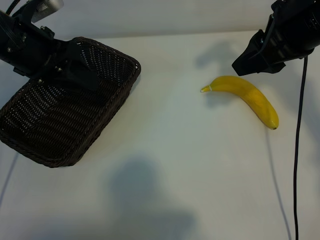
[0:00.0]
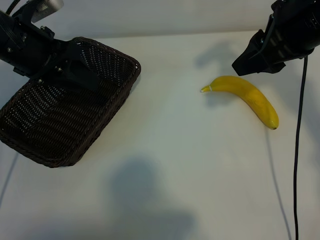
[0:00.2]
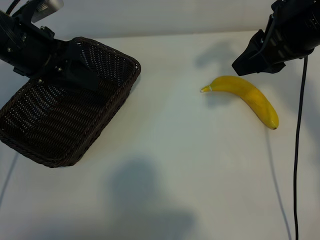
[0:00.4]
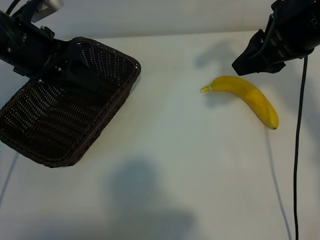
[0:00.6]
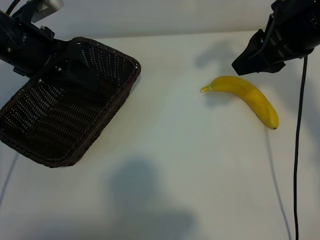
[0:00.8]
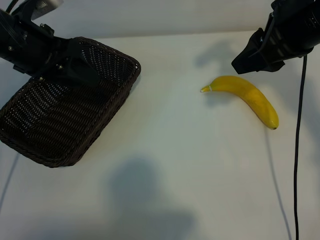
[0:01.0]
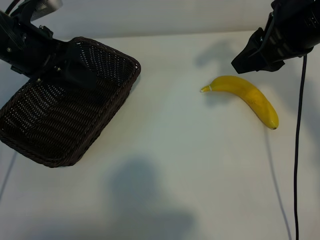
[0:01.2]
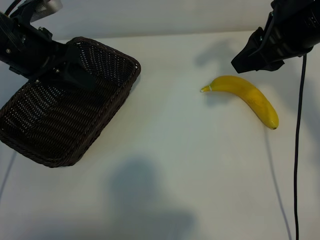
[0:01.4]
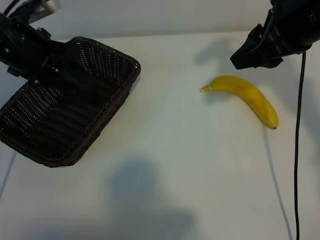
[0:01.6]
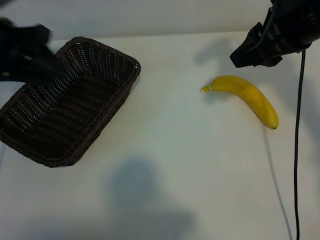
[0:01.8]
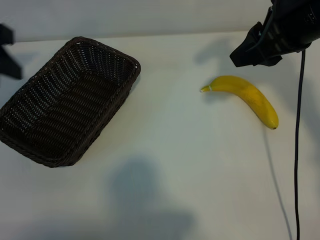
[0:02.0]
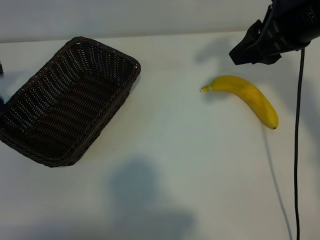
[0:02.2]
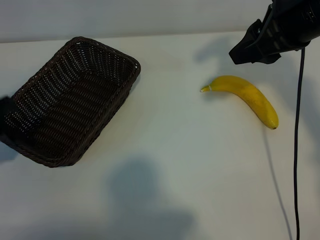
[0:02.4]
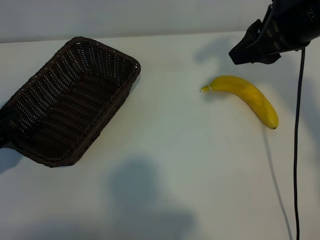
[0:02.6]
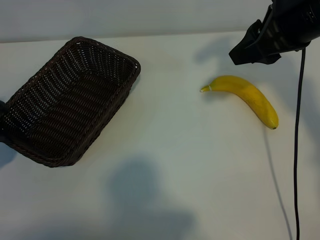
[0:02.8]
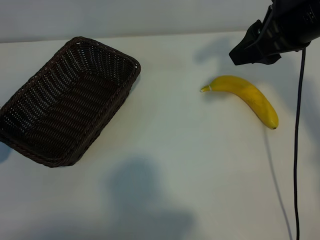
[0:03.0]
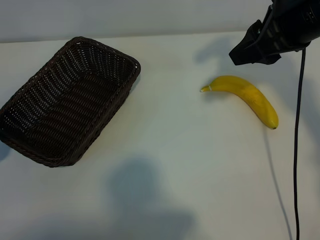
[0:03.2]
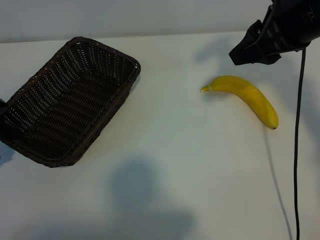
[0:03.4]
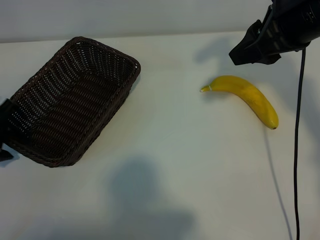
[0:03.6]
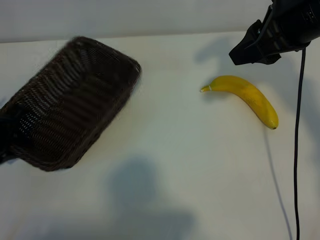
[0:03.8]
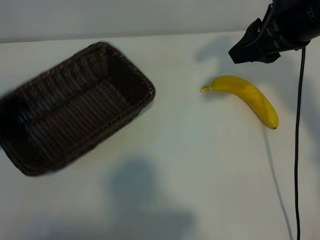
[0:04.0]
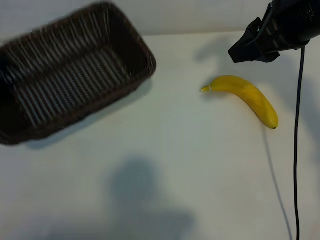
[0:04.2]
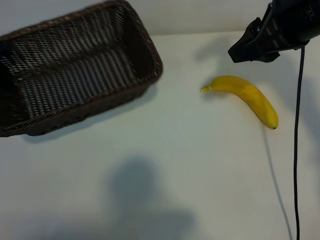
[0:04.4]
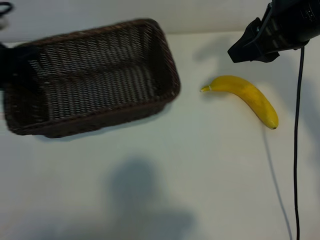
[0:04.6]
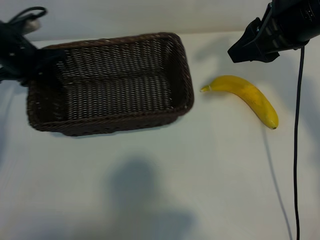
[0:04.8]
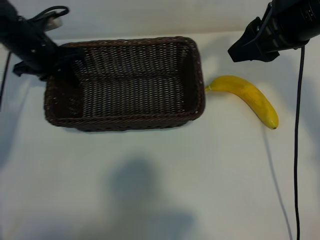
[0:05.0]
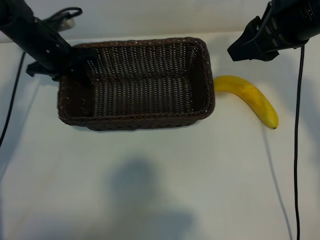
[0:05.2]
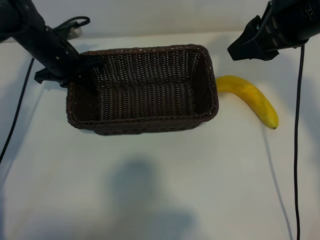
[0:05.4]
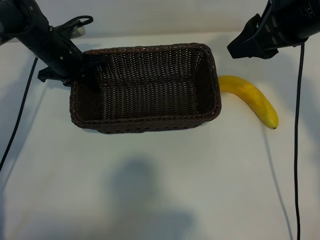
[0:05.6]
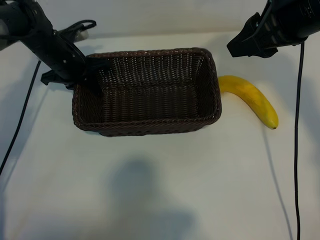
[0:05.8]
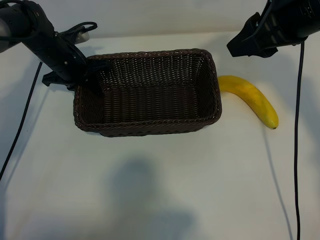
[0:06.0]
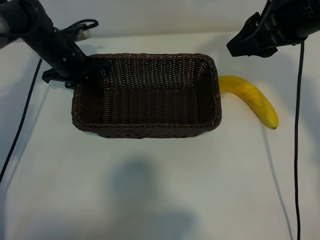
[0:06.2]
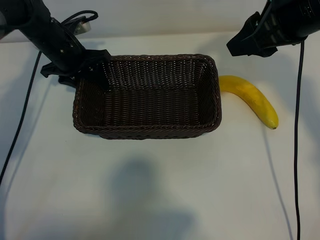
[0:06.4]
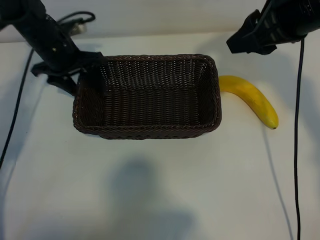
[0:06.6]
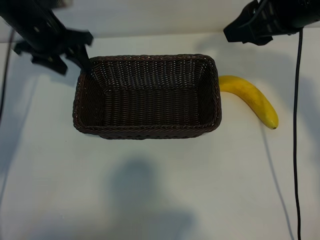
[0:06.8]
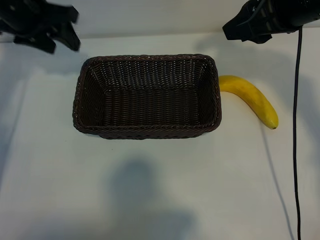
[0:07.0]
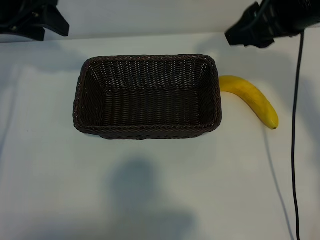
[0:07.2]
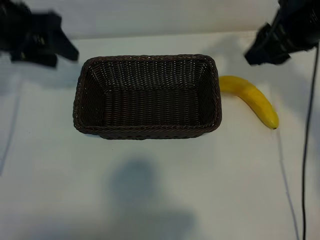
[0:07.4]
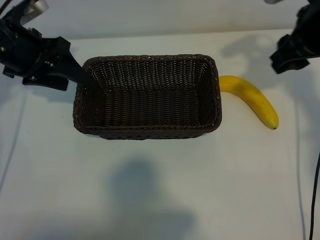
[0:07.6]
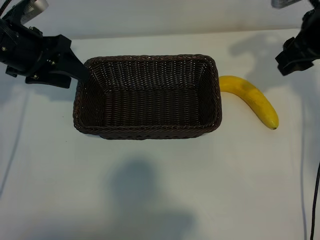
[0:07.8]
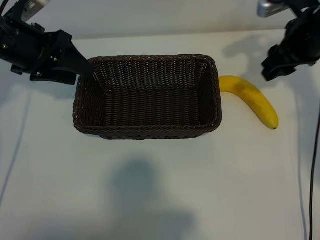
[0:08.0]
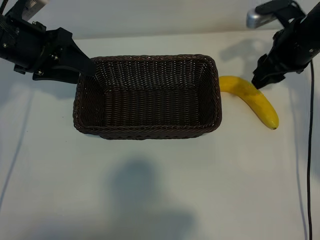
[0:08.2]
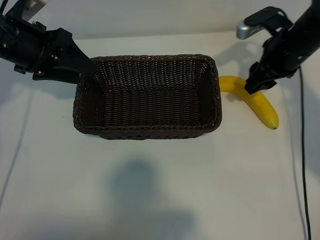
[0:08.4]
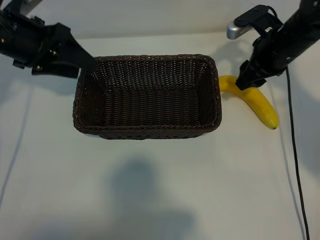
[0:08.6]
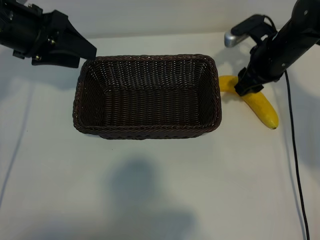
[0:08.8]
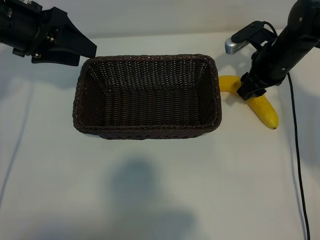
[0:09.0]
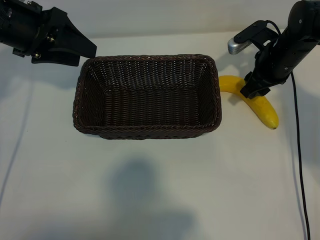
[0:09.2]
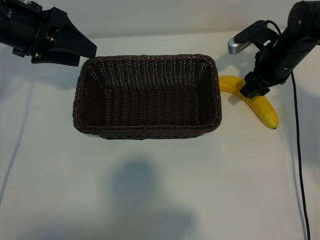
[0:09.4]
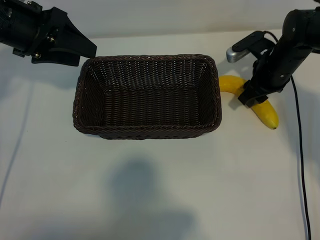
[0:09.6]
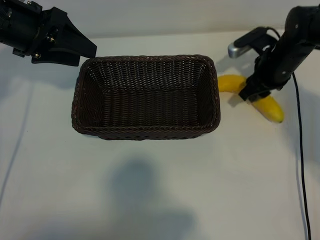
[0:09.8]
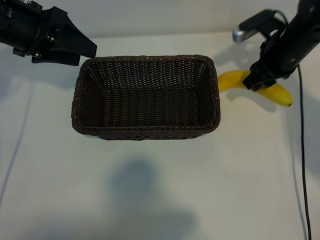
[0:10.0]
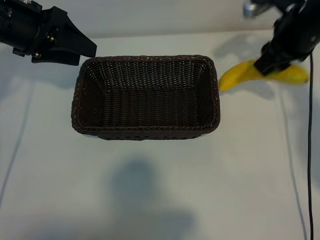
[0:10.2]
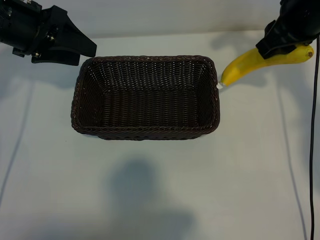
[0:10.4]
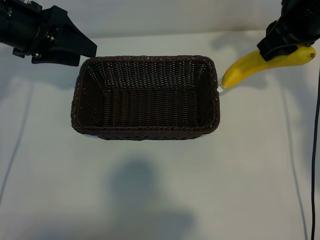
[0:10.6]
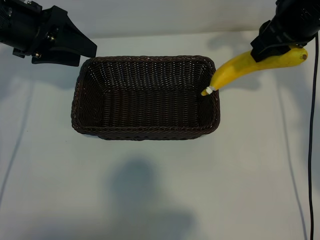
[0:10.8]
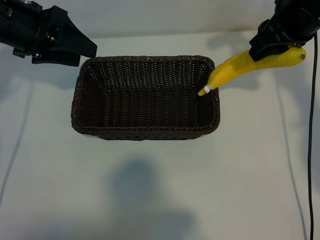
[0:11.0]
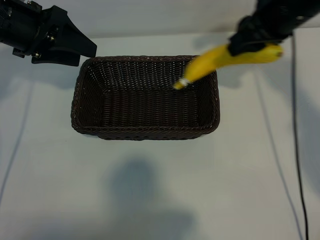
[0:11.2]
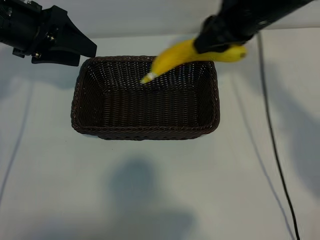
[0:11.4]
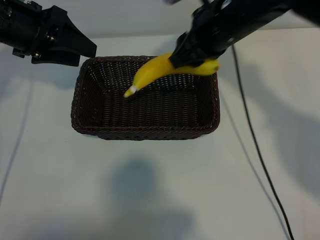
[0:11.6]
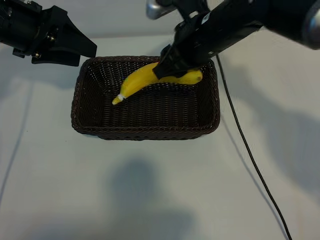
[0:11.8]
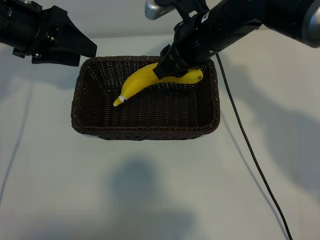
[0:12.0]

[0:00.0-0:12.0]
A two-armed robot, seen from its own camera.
Task of the whole recording: pick up the banana and put it into the basket.
Step, 0:00.6 to 0:03.8: Grasp the basket with the left gripper.
Step, 0:04.0 to 0:06.6: Place the basket in the center of the table with the left gripper.
Step, 0:06.8 to 0:09.6: Grasp the banana with right gripper.

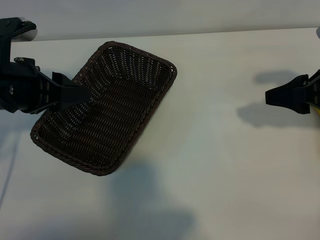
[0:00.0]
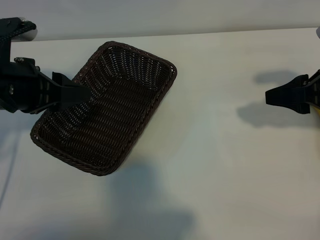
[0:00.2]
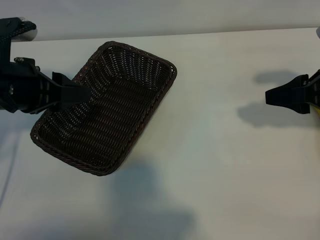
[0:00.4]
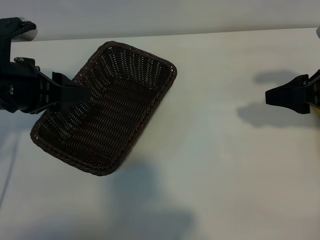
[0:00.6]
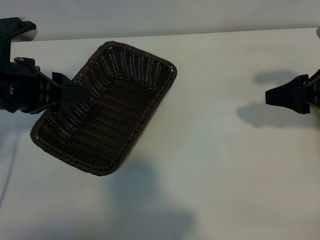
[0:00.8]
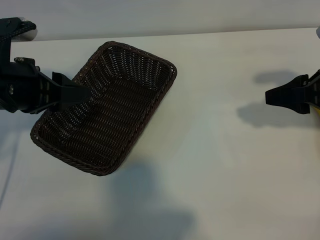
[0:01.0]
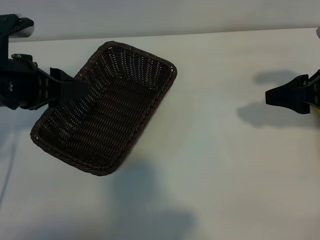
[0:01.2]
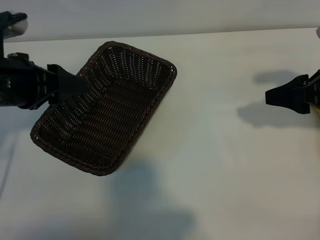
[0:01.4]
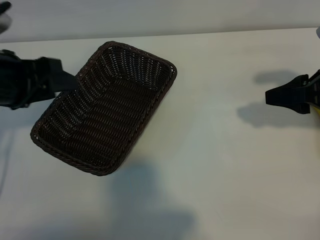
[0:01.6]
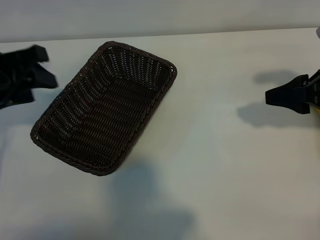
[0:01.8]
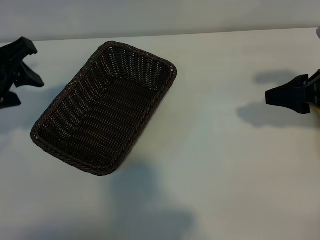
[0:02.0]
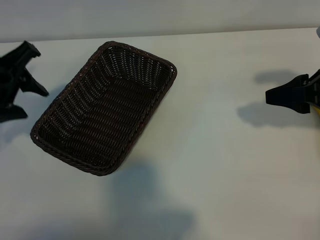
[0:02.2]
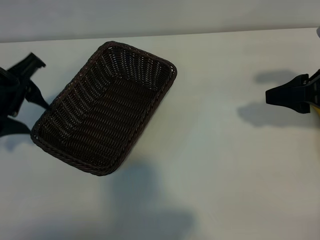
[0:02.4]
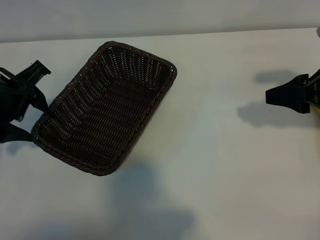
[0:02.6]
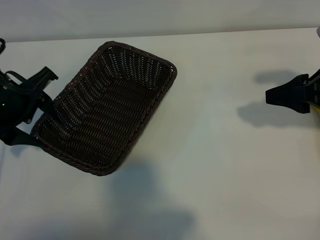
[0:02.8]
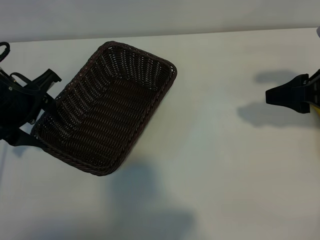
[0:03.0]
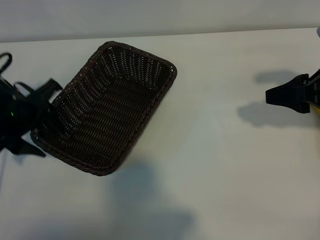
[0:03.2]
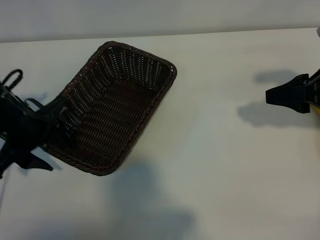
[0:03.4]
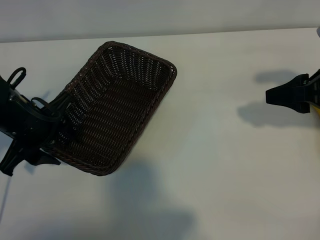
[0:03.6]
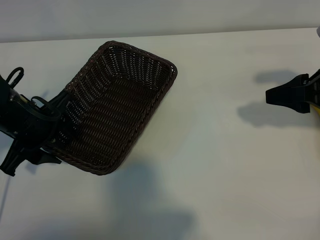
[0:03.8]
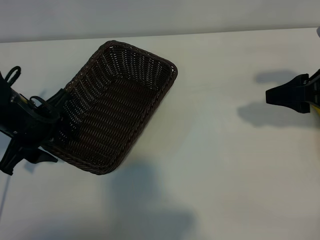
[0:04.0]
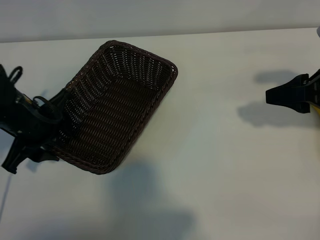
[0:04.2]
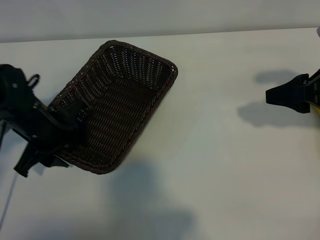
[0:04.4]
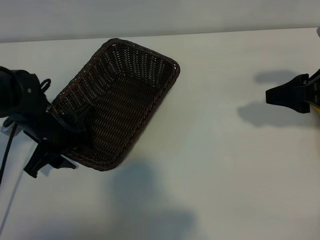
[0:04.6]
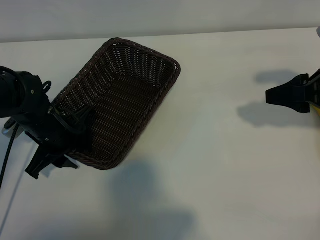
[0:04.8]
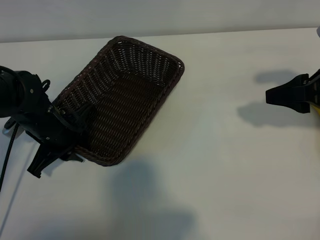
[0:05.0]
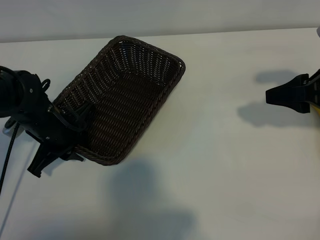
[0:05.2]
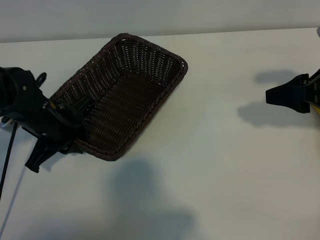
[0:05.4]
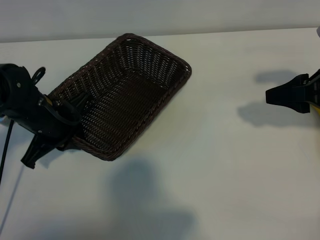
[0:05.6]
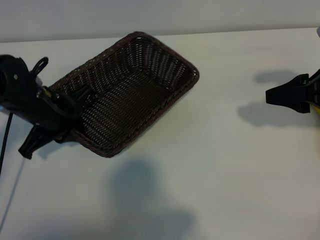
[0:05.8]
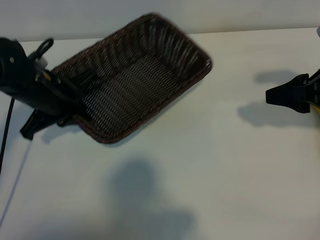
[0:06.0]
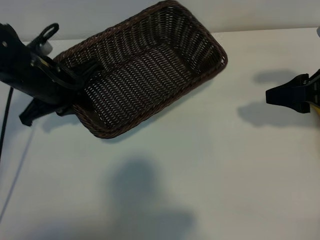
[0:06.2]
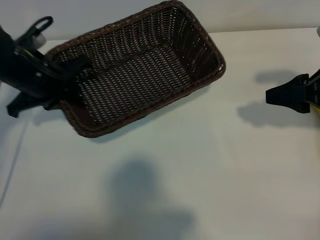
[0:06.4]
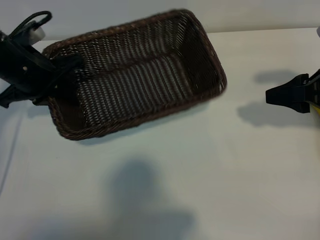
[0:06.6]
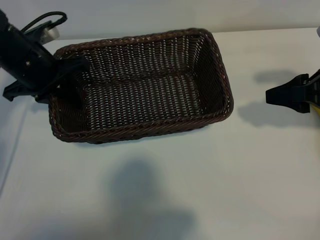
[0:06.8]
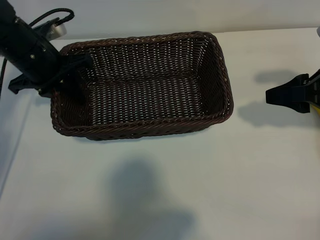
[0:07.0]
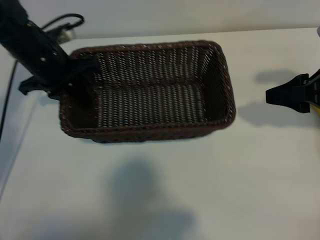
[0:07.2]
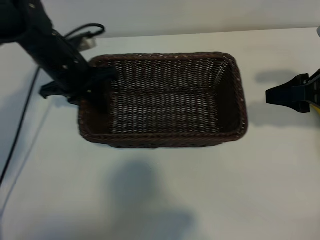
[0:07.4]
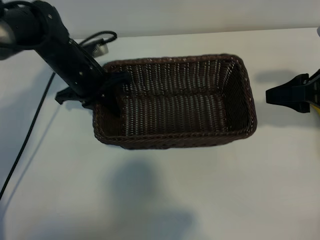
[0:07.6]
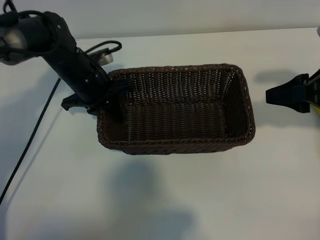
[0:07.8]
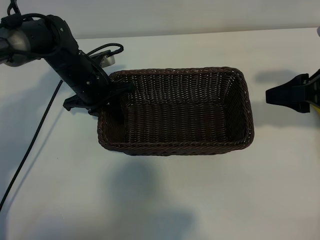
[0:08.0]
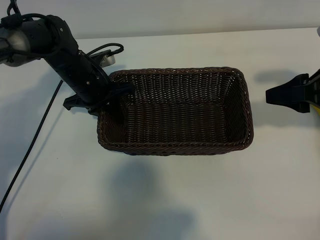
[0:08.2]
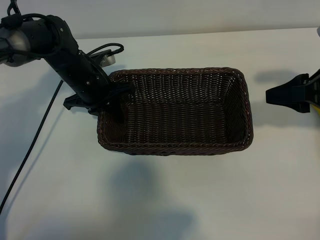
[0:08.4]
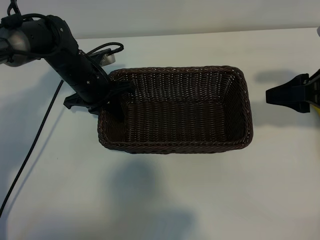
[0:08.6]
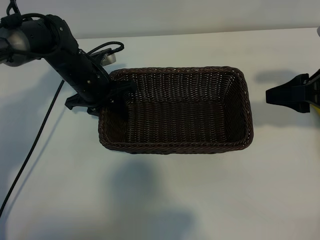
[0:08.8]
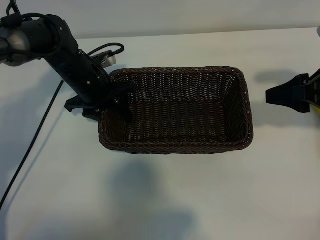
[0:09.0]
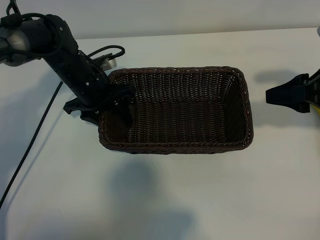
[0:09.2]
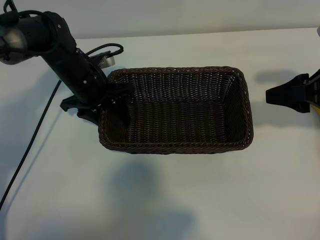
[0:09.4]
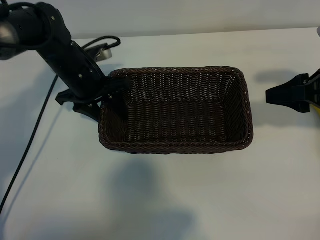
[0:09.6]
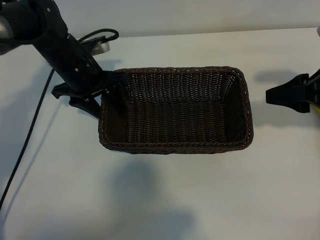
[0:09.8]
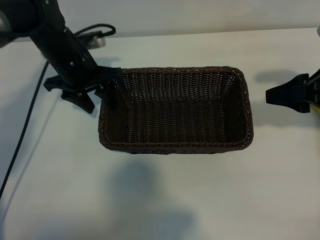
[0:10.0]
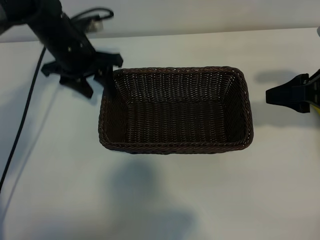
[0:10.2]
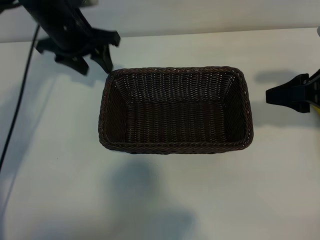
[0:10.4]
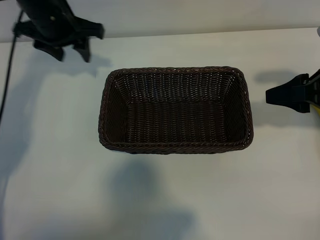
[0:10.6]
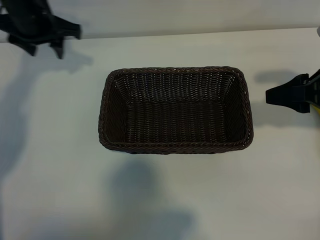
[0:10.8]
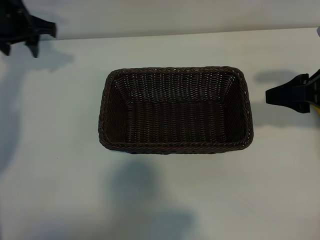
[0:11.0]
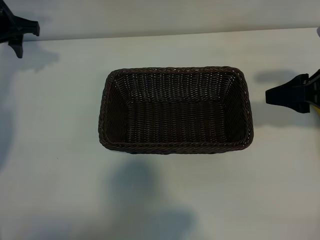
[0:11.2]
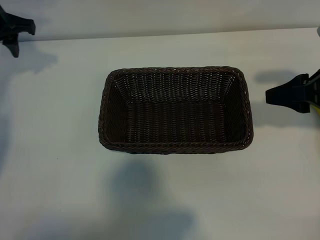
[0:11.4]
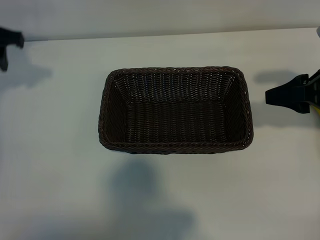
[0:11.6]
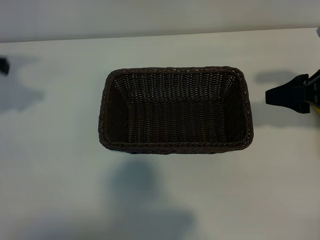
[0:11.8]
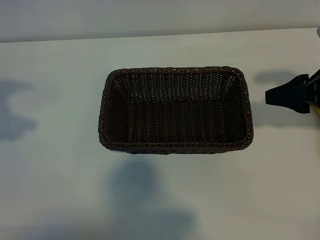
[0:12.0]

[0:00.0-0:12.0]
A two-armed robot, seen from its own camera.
Task of the whole recording: pick up the banana and put it into the basket.
Step, 0:01.2 to 0:05.2: Grasp the basket with the left gripper.
Step, 0:05.6 to 0:09.6: Place the basket in the center of the table with the left gripper.
